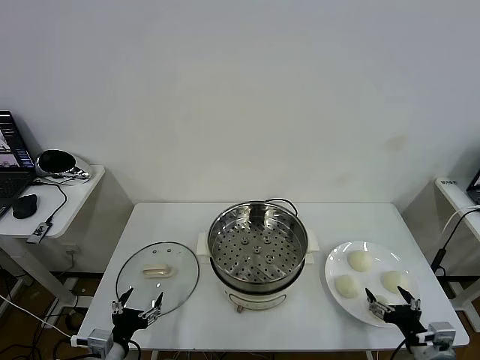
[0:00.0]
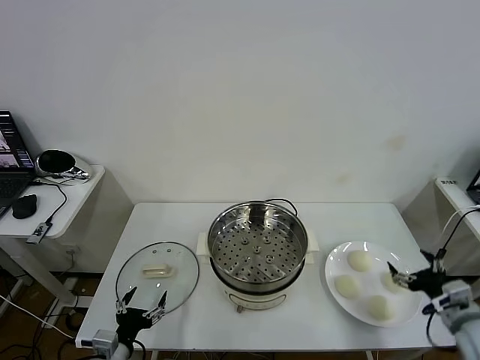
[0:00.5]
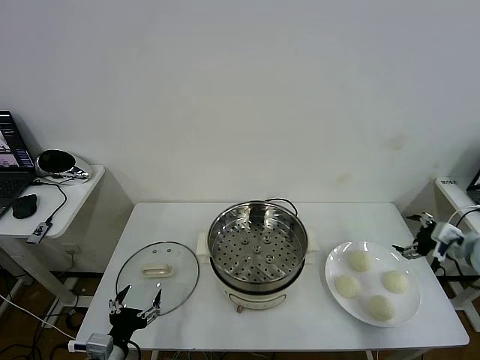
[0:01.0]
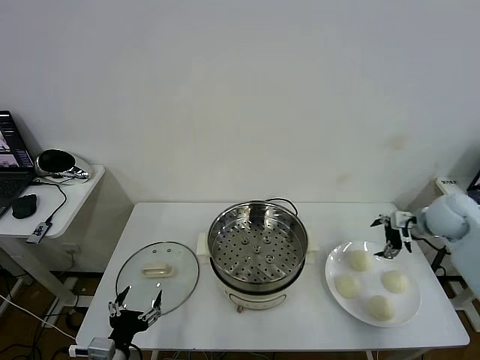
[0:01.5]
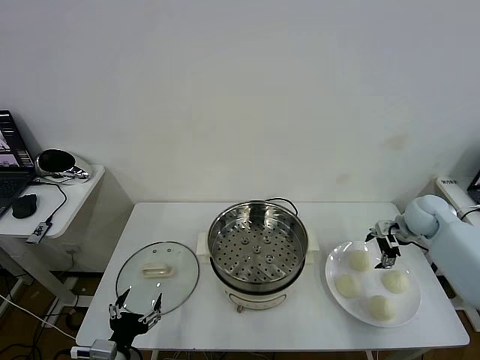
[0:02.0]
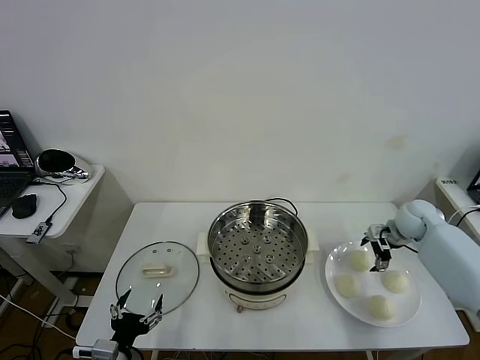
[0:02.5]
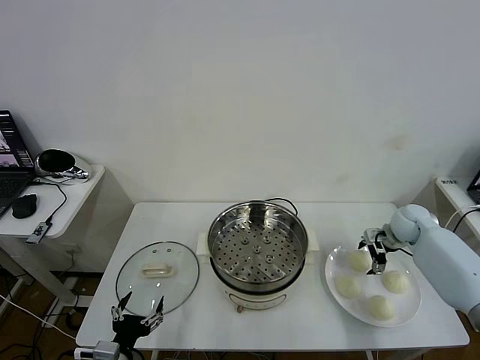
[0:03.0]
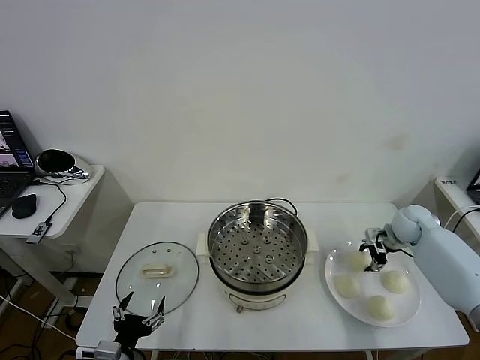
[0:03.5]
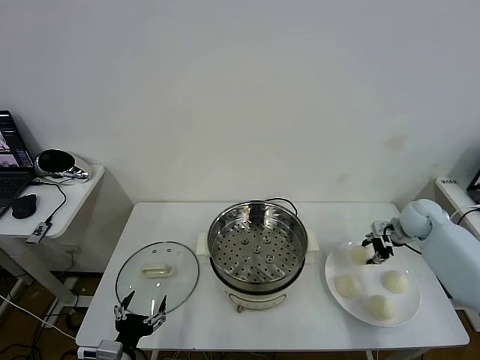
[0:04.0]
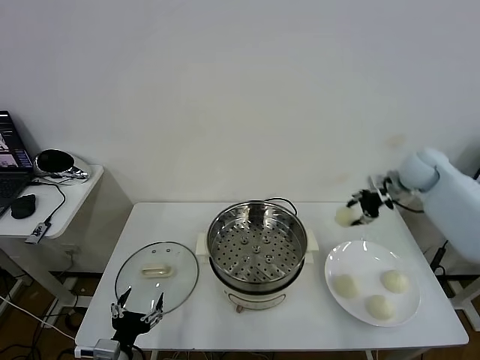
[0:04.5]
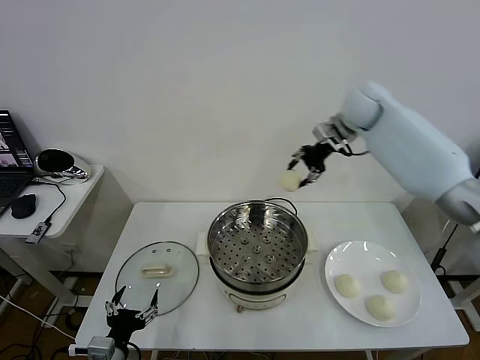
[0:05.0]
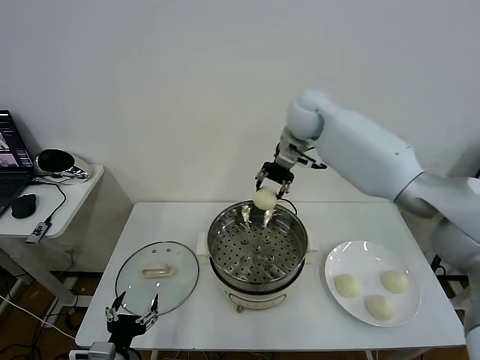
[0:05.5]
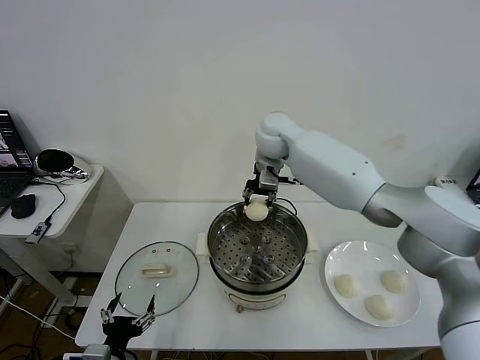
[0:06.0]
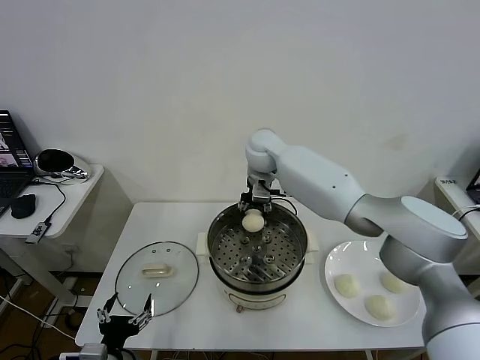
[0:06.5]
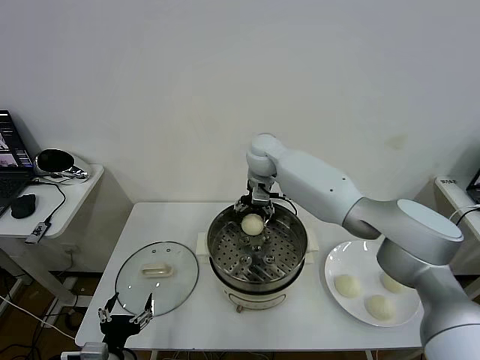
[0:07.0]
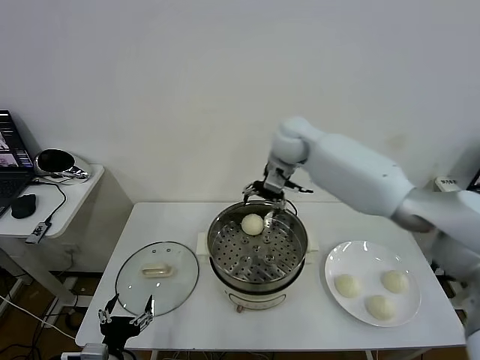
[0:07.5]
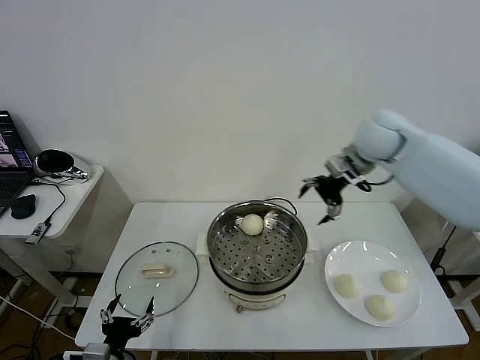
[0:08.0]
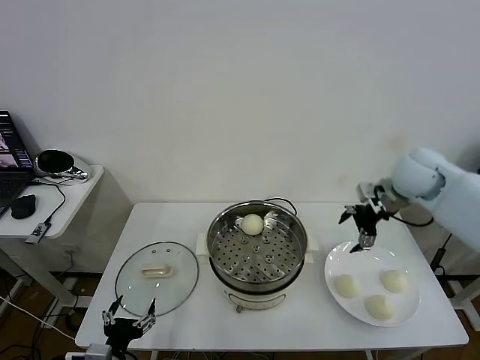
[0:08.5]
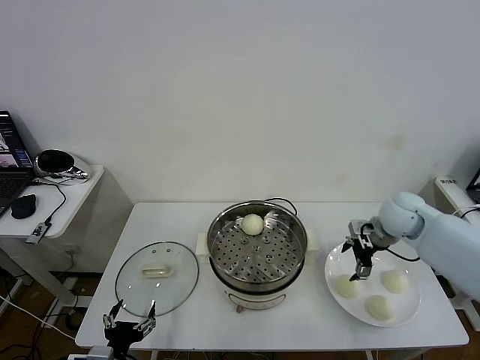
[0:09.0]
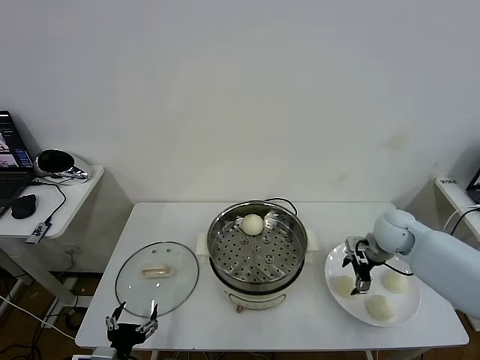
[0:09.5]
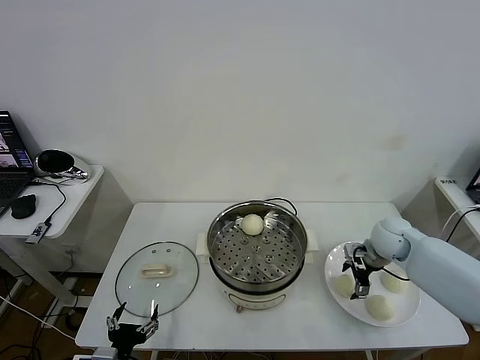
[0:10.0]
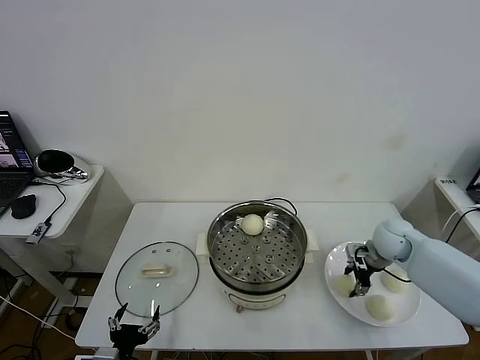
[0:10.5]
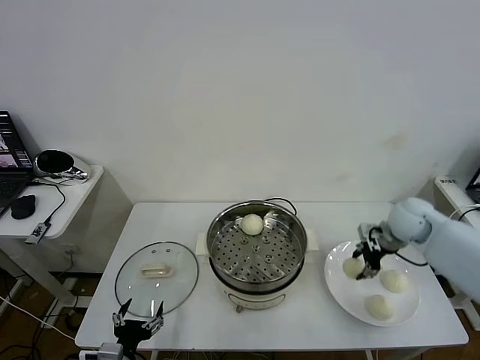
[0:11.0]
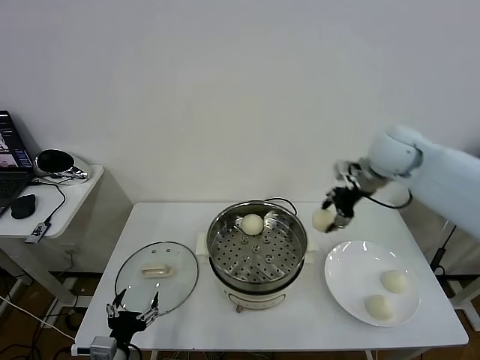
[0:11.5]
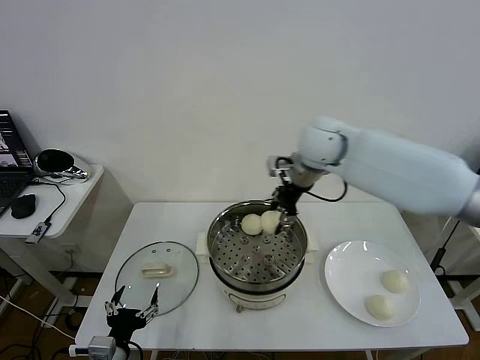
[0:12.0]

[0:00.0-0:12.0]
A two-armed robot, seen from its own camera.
Task of the whole recording: take steamed baozi put them in steamer then cover it.
Step, 0.0 to 3.5 s: Grasp the baozi in the plate with right gripper.
Step, 4.0 to 7.0 s: Place the baozi on the steamer with right gripper.
Step, 7.5 to 10.5 s: Grasp the baozi in the plate with right gripper.
2.0 to 4.0 s: The right gripper closes up.
4.0 to 6.0 s: The right gripper shifts roughly 40 cm to the left.
6.0 to 8.0 s: The right gripper travels to the right by about 25 cm, and opens.
8.0 to 10.0 s: The right gripper goes about 25 cm downward.
10.0 to 12.0 s: The right gripper goes roughly 30 cm to the left and upward, and closes.

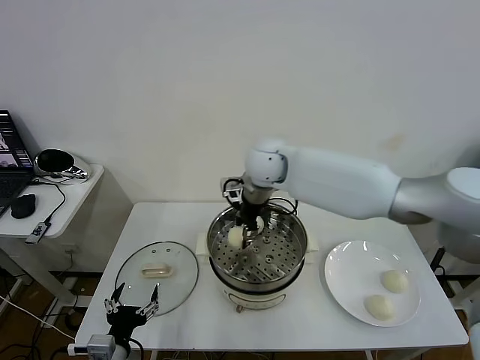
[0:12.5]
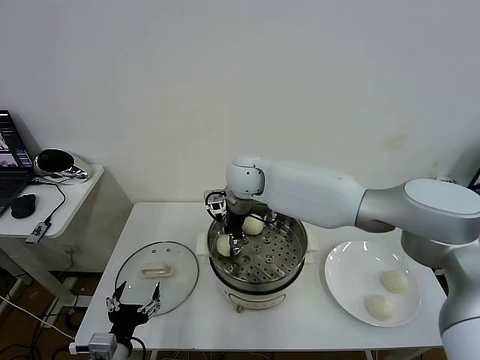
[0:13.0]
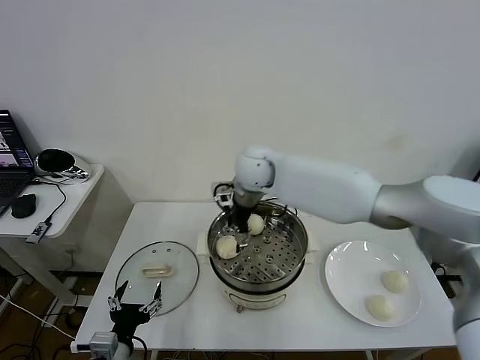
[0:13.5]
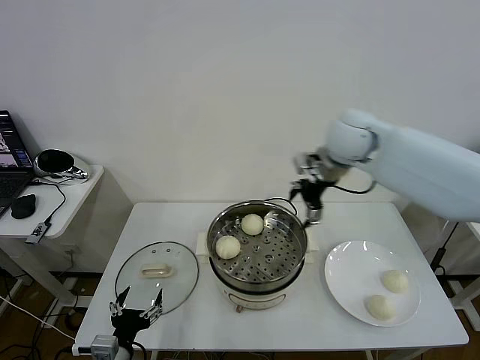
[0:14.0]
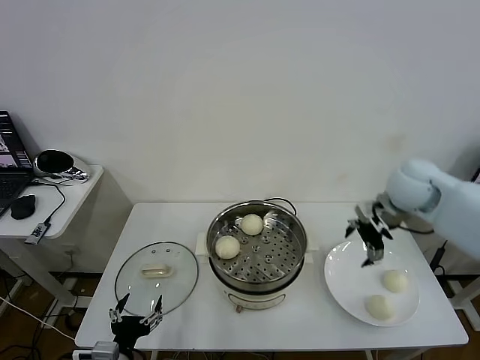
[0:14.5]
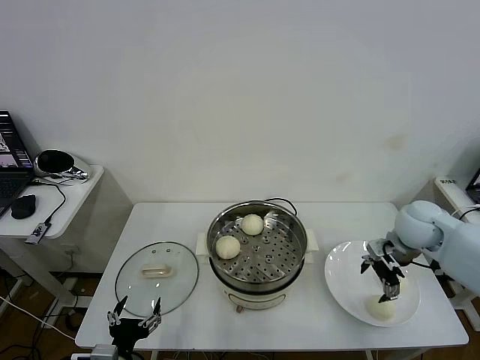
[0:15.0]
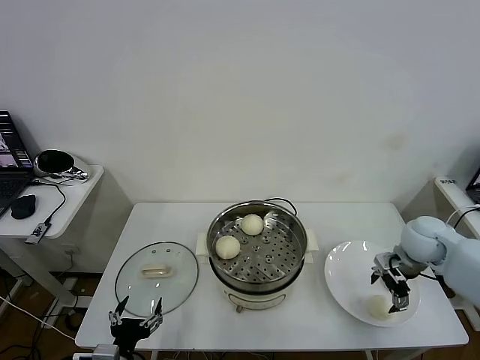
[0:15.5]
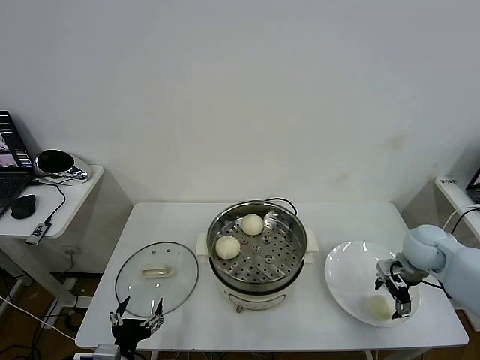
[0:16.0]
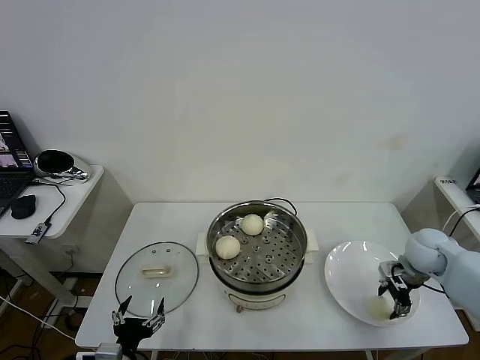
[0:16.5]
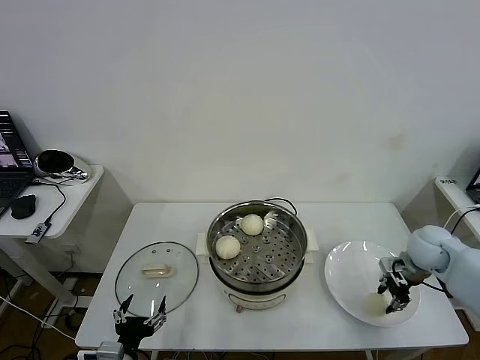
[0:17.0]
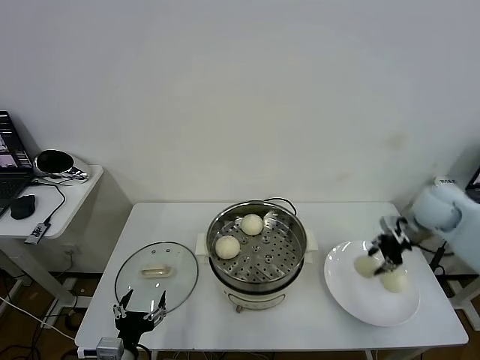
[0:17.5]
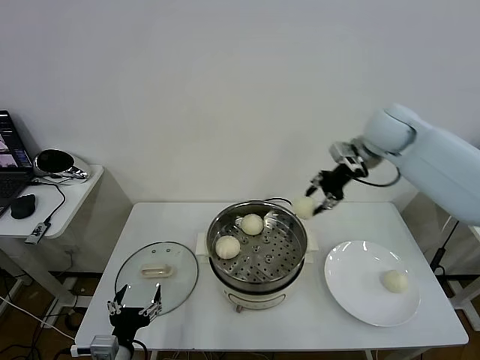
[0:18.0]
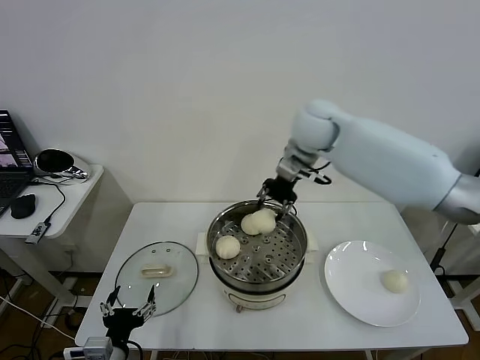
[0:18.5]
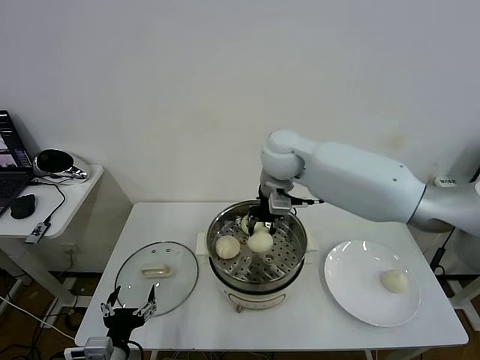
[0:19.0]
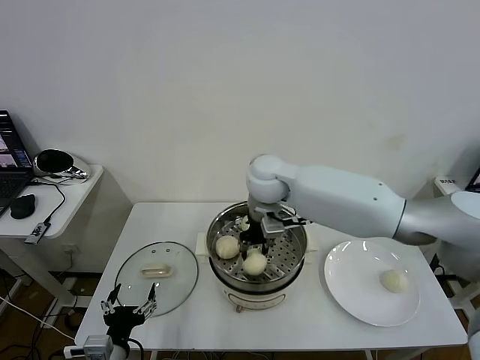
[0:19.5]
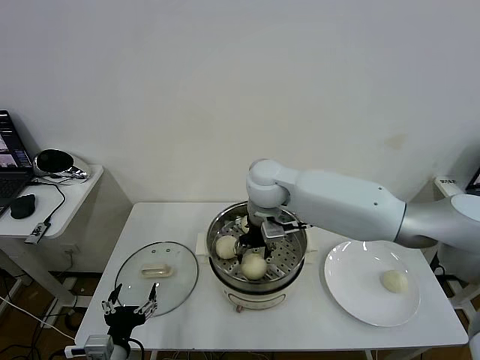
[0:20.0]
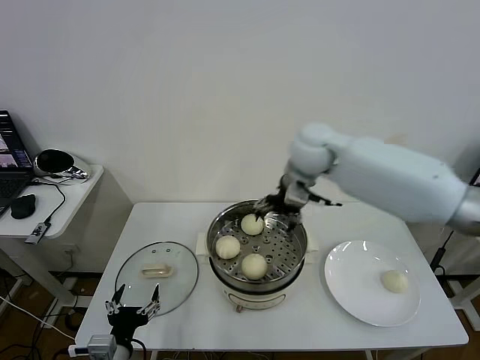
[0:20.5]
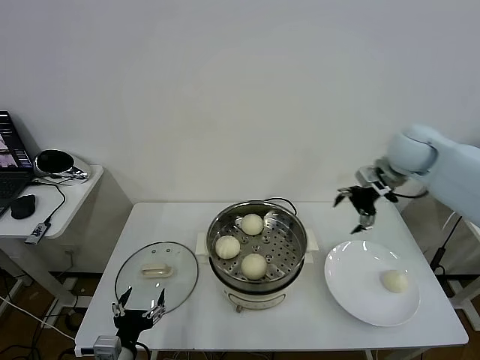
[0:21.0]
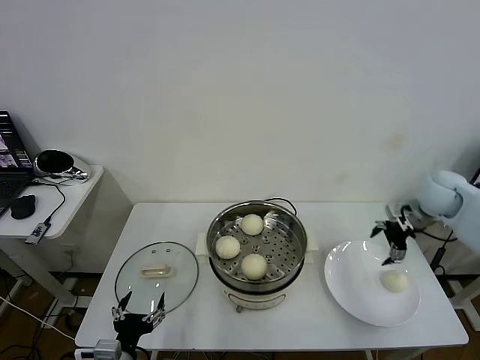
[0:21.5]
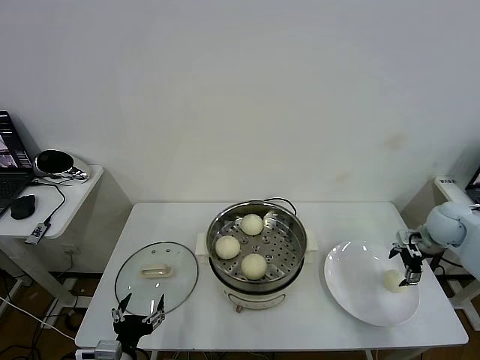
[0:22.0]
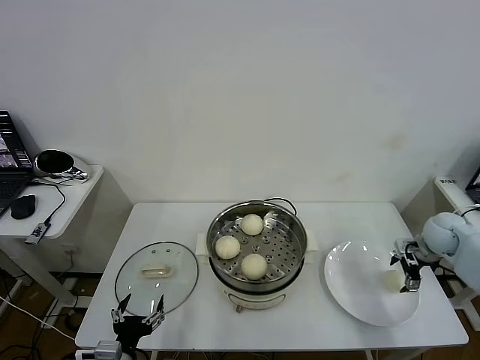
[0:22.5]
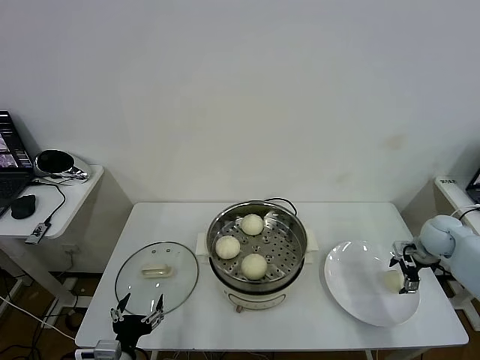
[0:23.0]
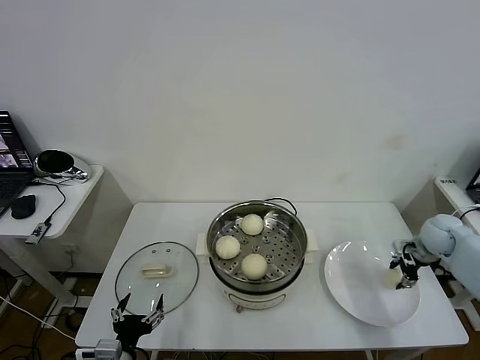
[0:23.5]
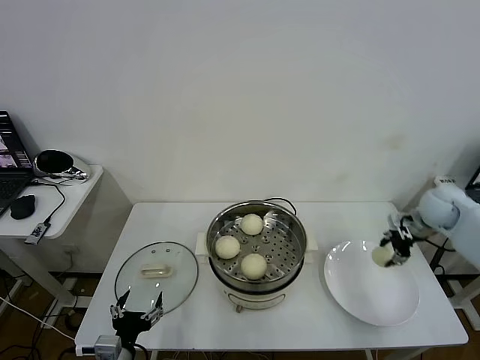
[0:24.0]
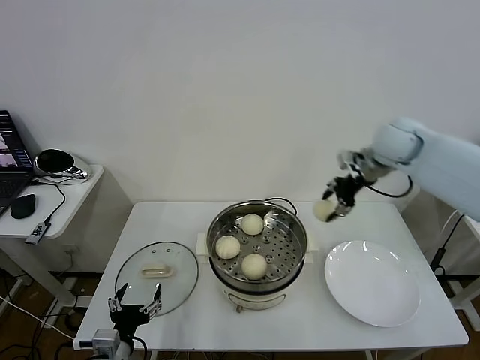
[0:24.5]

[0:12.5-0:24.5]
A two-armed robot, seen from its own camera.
Task of the whole recording: take steamed baozi put them in steamer then cover it.
Step, 13.5 to 16.5 s: Grasp the baozi in the plate with right gripper.
Step, 17.0 to 20.0 s: Place the baozi on the steamer with right gripper.
Step, 20.5 to 23.5 s: Grasp the baozi in the plate with right gripper.
12.5 to 14.5 s: The right gripper heads to the right, covering some 30 cm, and opens.
14.5 to 16.5 s: The right gripper heads downward and to the right, covering roughly 15 cm, and closes up.
16.5 to 18.5 s: The right gripper goes some 40 cm to the left, upward and forward, and closes its fingers.
18.5 to 20.5 s: The right gripper reaches some 10 cm to the left, then returns, and opens up.
20.5 to 22.5 s: The right gripper shifts about 40 cm to the right and downward.
22.5 to 24.5 s: The right gripper is displaced upward and to the left by about 30 cm, and closes up.

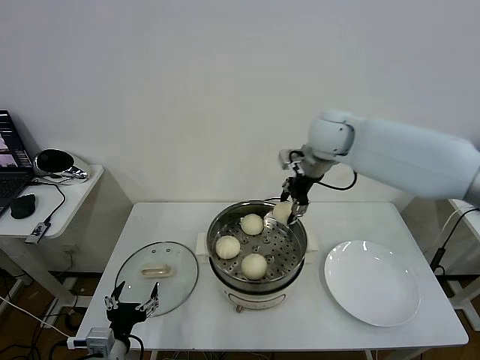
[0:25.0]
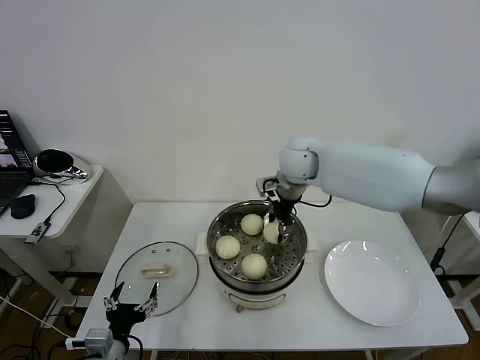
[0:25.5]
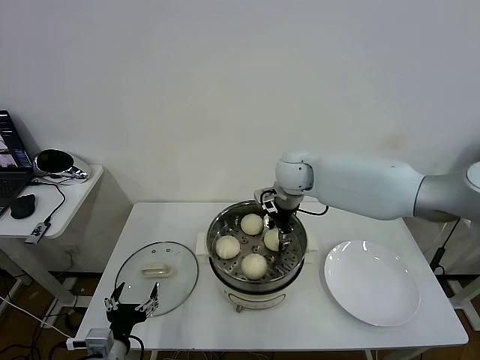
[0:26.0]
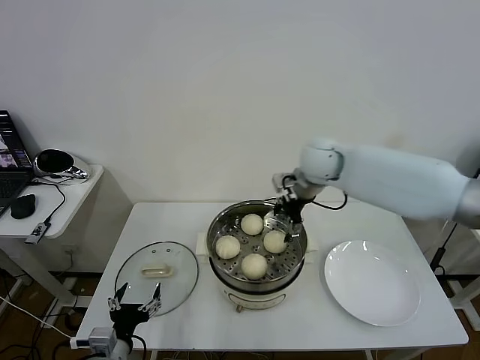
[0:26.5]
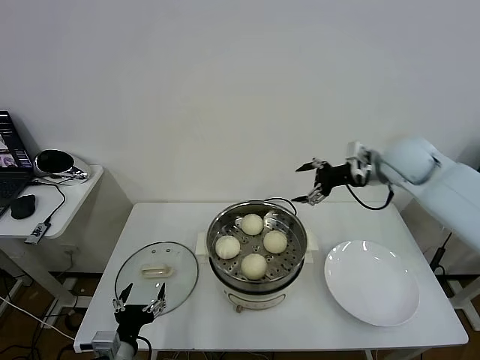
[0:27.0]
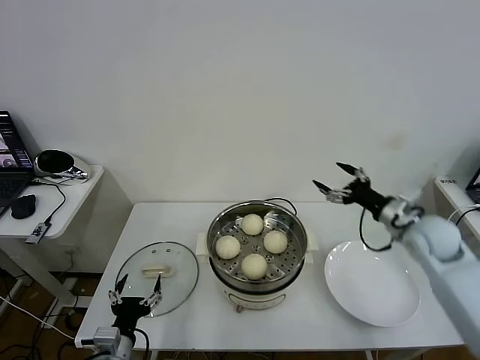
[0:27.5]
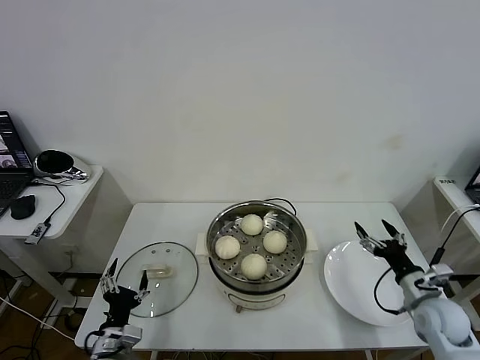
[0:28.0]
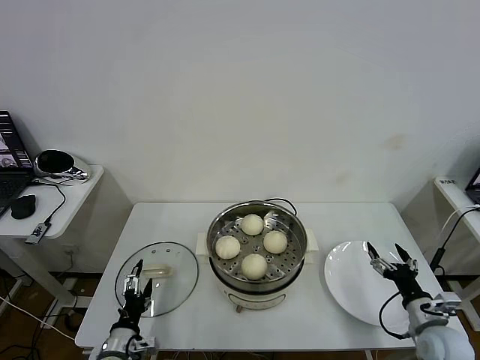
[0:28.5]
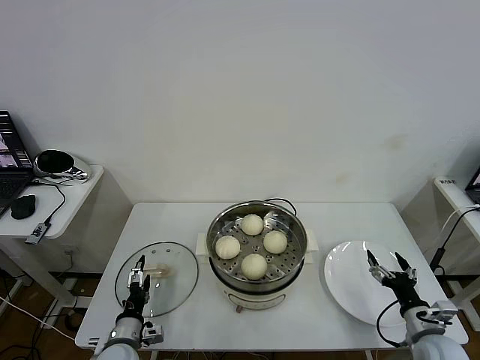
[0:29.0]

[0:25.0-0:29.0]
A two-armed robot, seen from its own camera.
Task of the whole recording: take steamed baozi put them in steamer then cover it.
25.0 to 27.0 s: The right gripper is displaced to the right by roughly 15 cm, and opens up.
27.0 to 29.0 s: The right gripper travels downward and backward by some 40 cm, while the left gripper travels downward and forward by about 10 cm.
